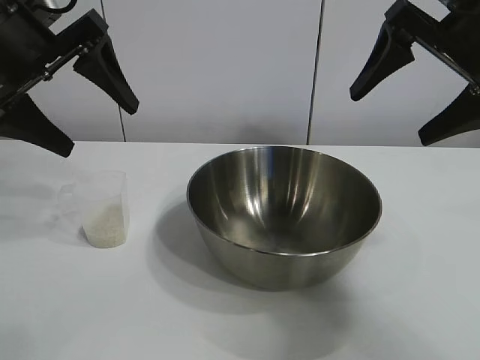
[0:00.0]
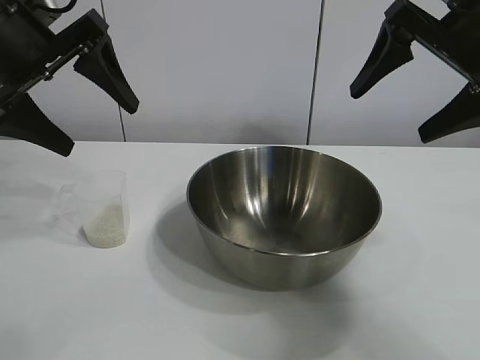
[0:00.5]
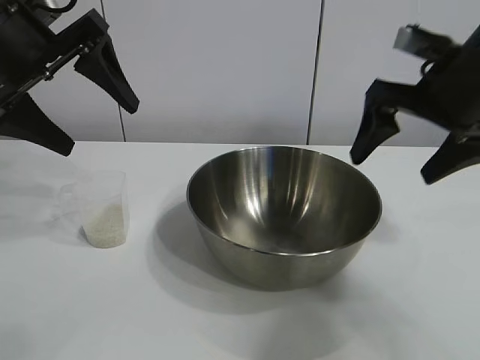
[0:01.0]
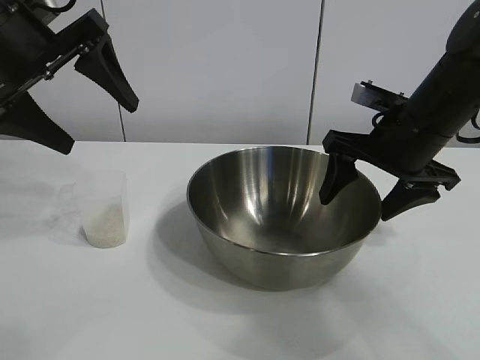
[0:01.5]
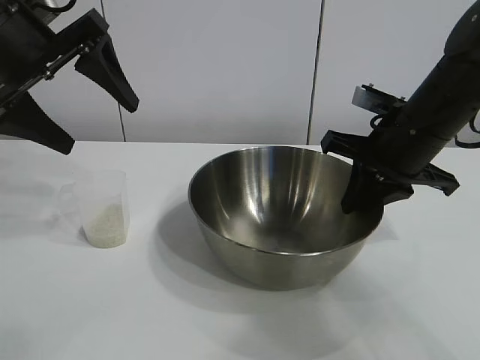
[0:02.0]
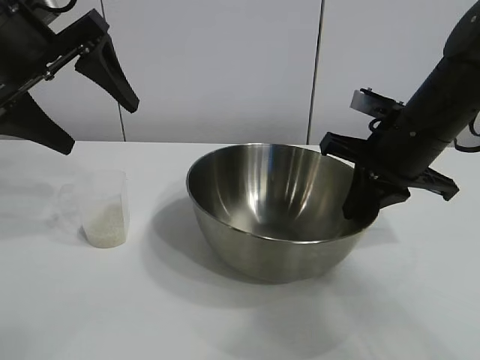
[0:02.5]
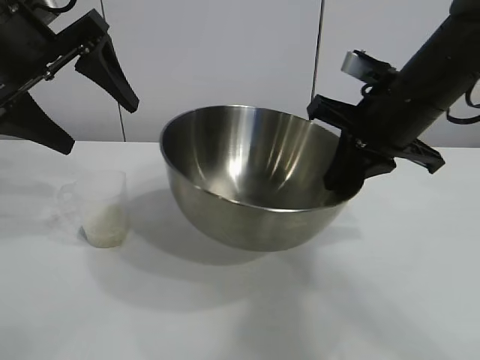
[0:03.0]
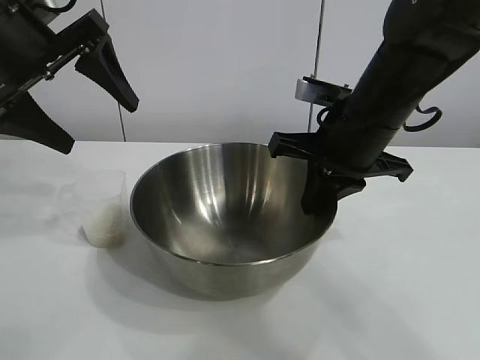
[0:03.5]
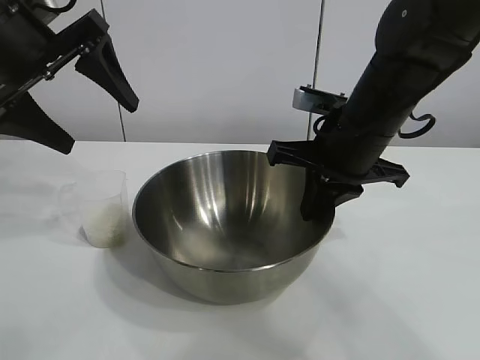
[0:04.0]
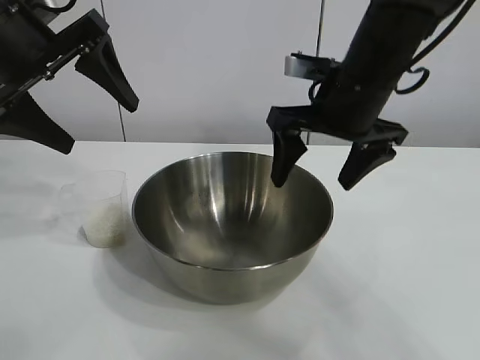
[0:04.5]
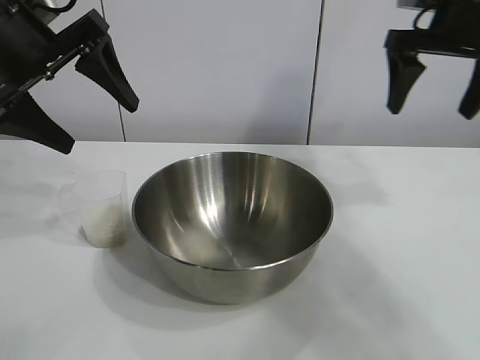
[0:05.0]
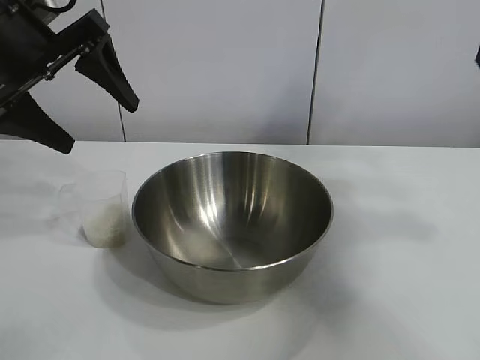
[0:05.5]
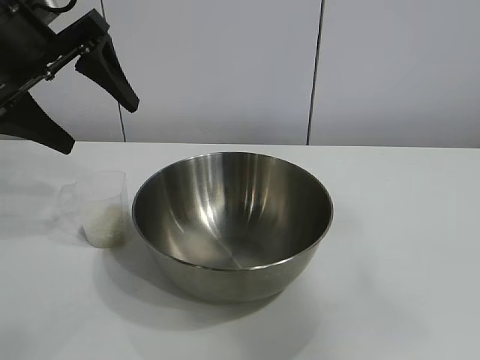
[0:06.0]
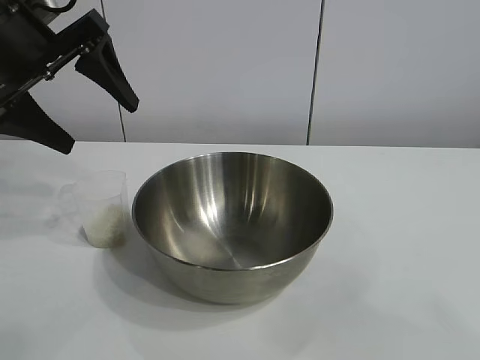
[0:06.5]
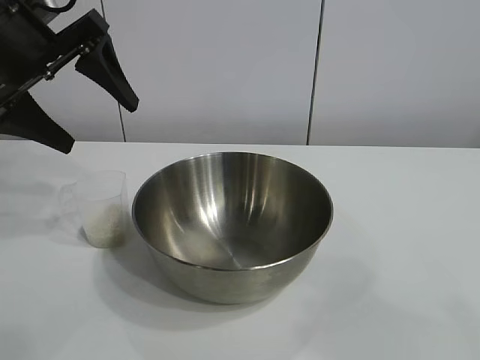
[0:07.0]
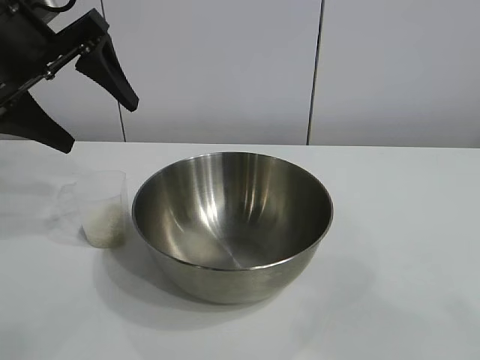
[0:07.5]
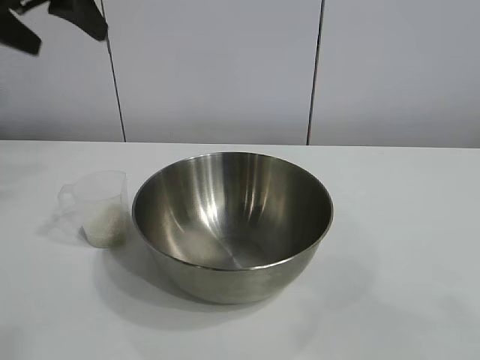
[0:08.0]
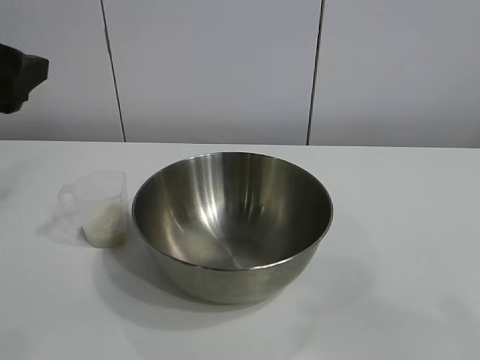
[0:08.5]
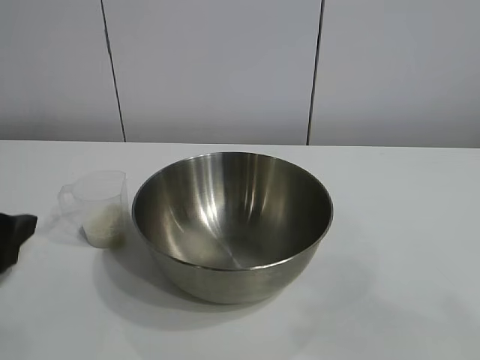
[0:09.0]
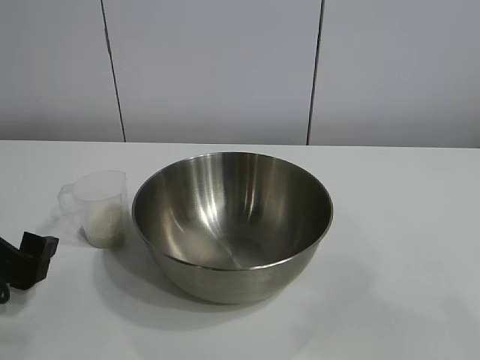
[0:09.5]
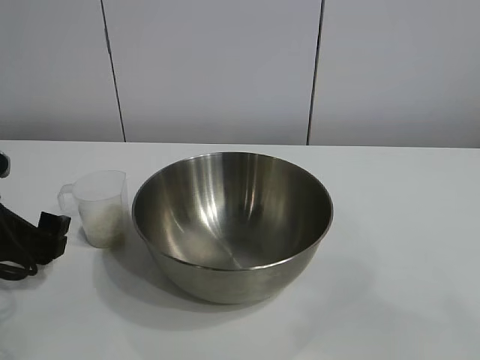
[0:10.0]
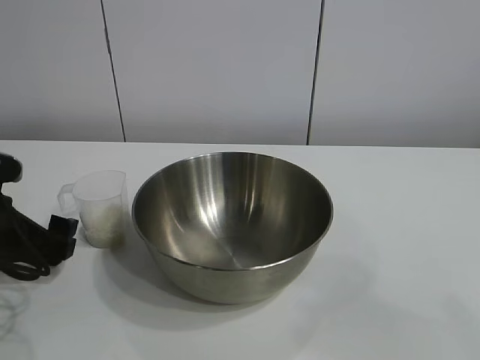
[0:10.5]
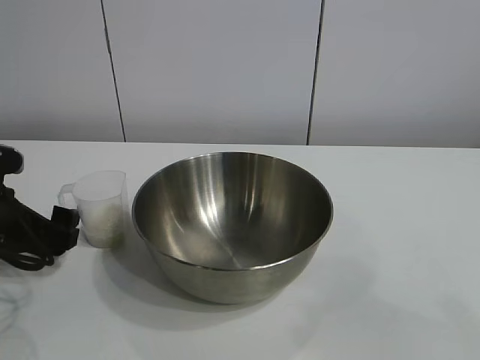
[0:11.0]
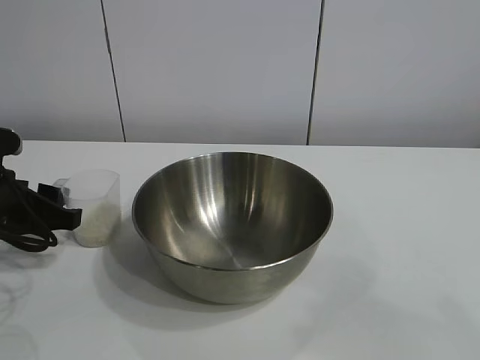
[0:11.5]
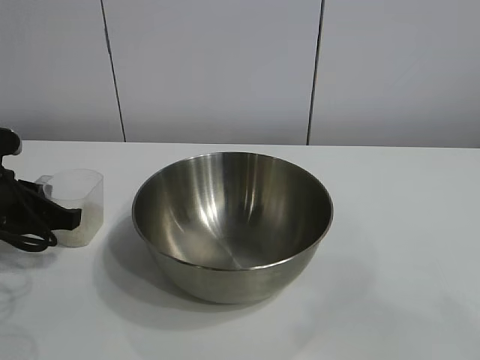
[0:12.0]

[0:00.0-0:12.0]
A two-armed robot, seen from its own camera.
Task of the whole recording: the right gripper grasp the rice container and place it in the center of the table, the left gripper grasp the rice scoop and pour the rice into the rice container.
Step, 0:01.0 to 0:04.0: Move the bowl in the center of view with right gripper.
Step, 0:04.5 to 0:11.5: Grasp the cup with rice in it with left gripper.

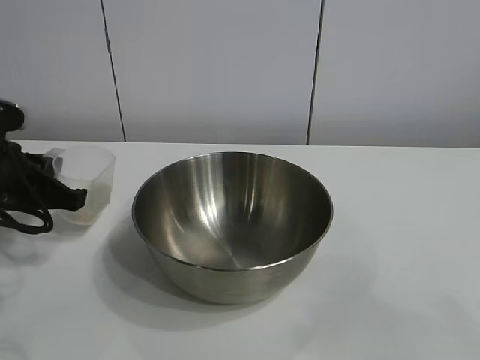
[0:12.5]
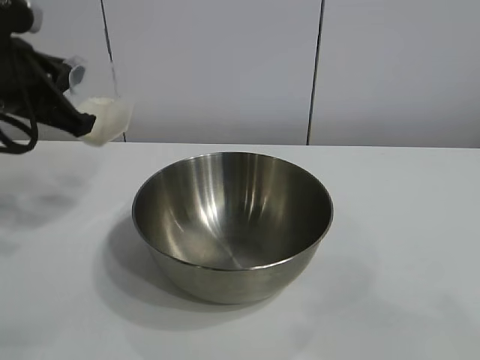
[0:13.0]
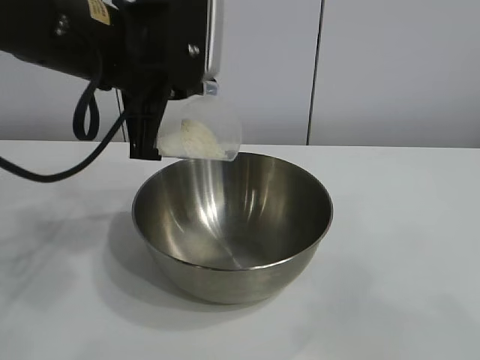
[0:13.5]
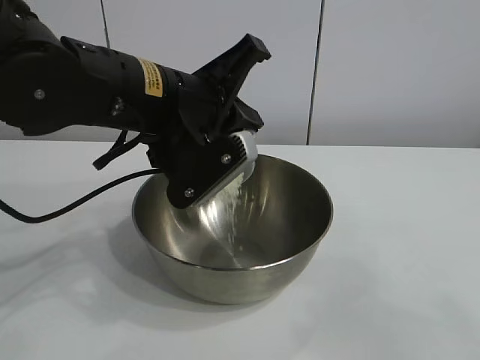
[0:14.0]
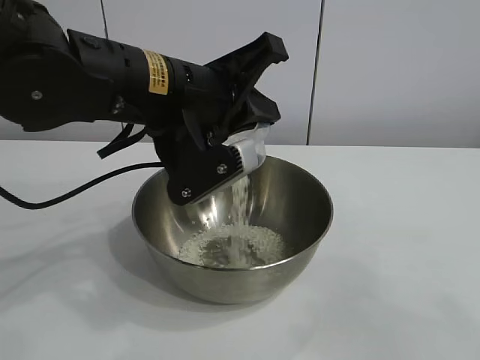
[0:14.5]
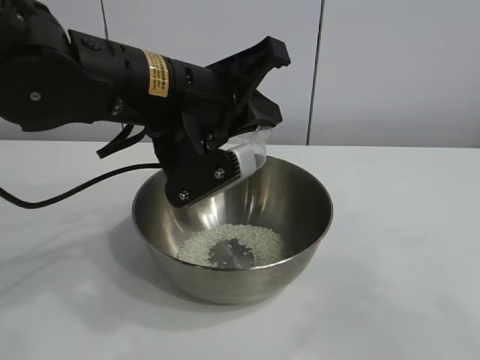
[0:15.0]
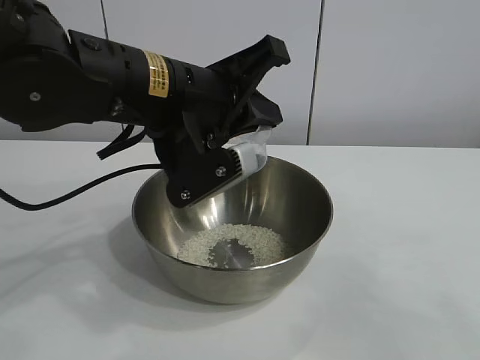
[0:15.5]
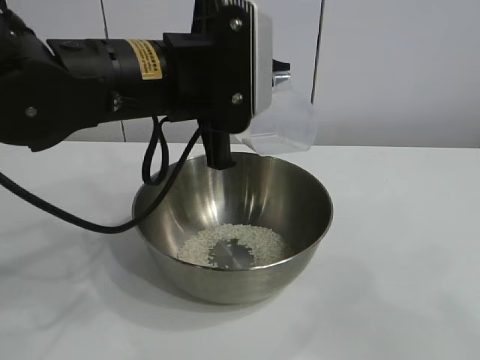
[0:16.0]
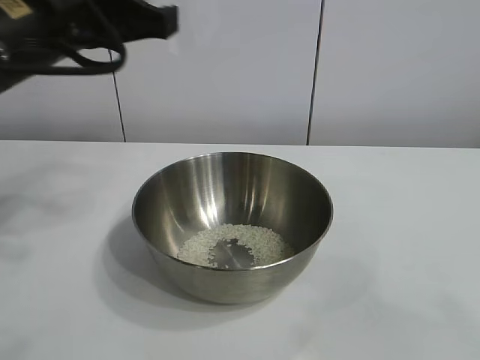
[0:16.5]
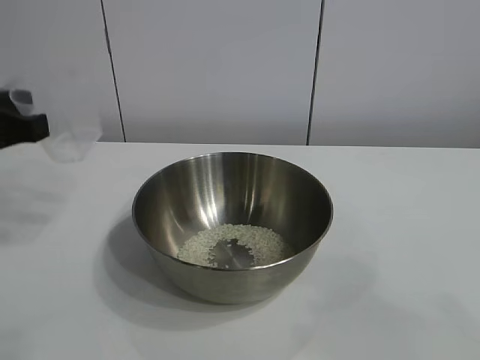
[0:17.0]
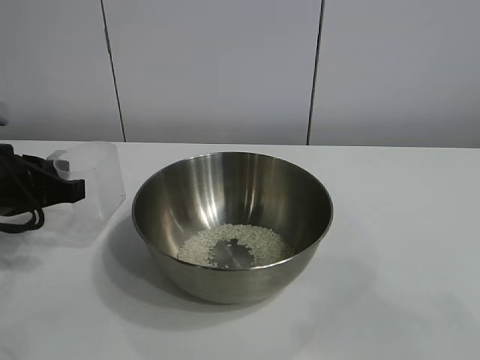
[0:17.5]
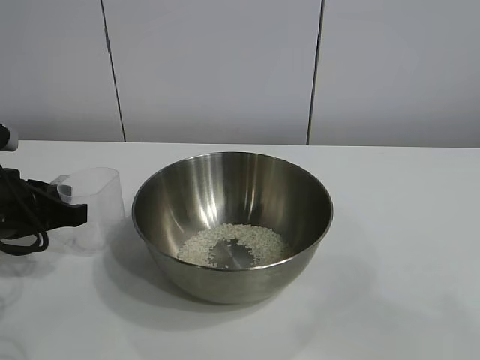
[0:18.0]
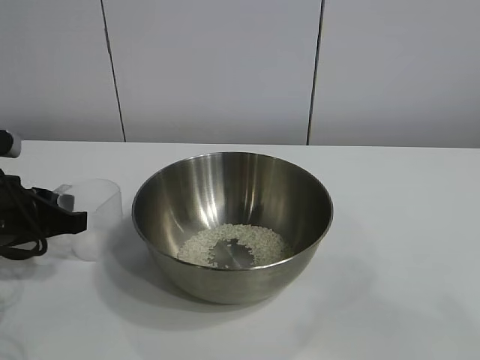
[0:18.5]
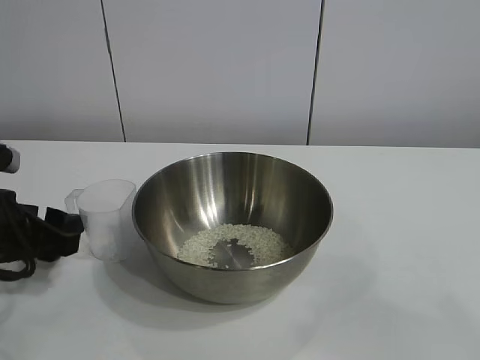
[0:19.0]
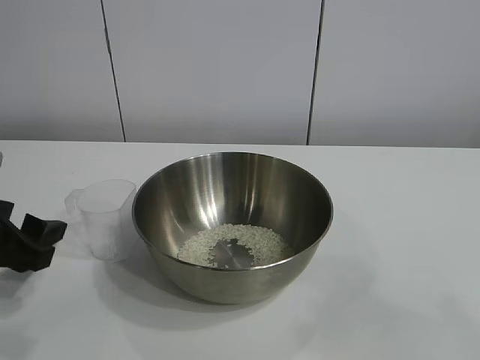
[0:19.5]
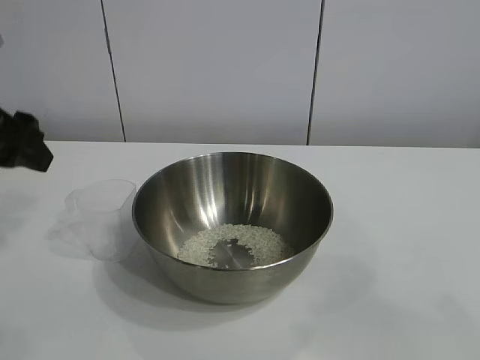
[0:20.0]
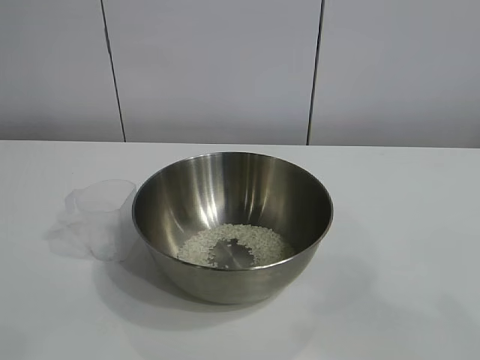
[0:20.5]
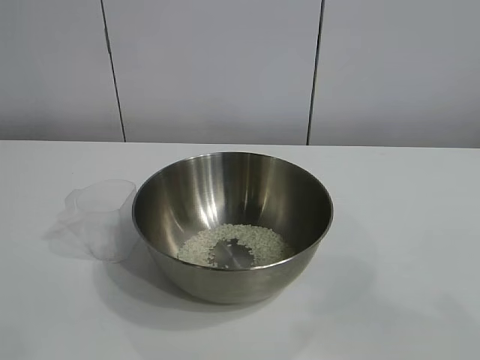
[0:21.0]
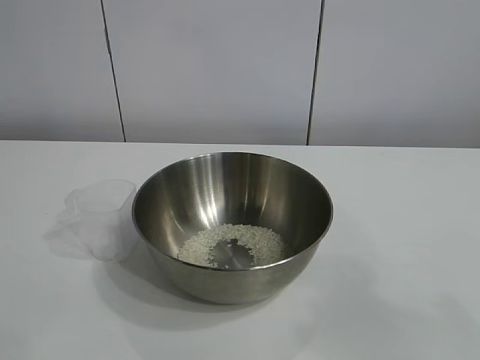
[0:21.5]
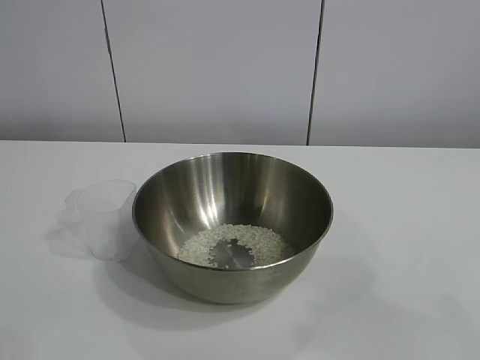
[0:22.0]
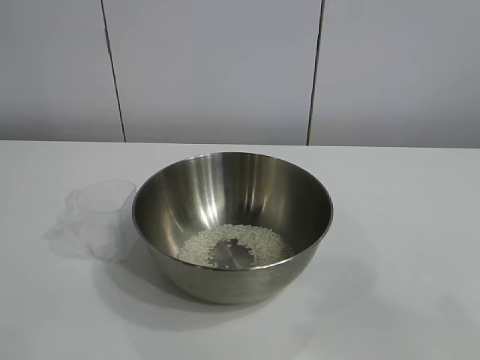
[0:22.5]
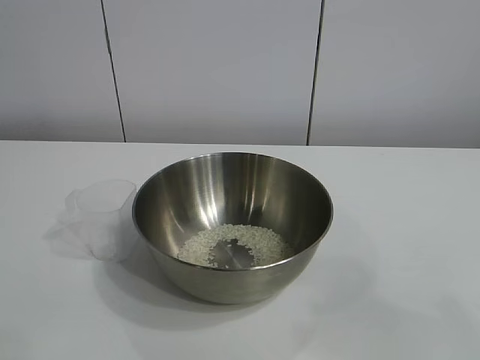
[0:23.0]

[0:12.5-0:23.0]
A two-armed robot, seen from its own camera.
Task of the whole recording: the right gripper grasp the rice container and place it in the center of the table, the left gripper grasp the rice scoop and pour the rice into the rice container.
Step, 0:12.5 to 0:15.0: Pour the rice from the cup into the bowl with the left gripper.
Step, 0:15.5 to 0:18.5: Place the cup on the table with the left gripper.
